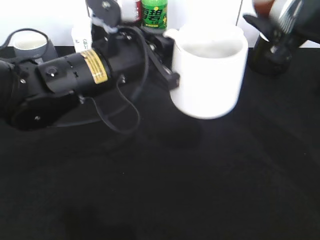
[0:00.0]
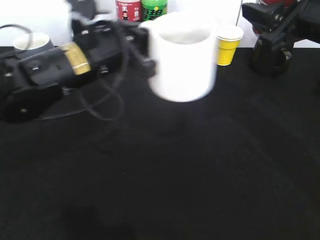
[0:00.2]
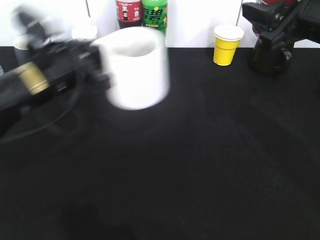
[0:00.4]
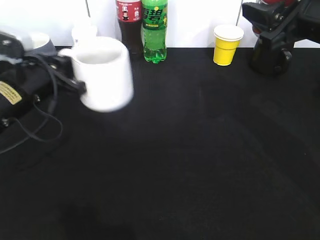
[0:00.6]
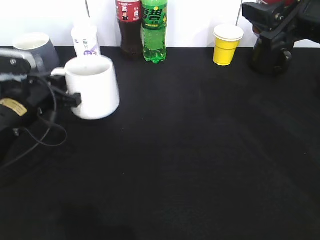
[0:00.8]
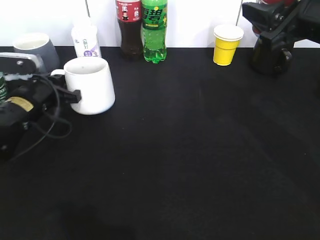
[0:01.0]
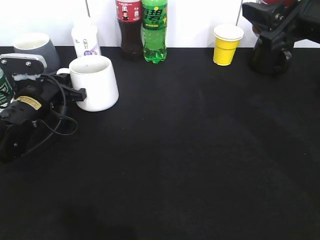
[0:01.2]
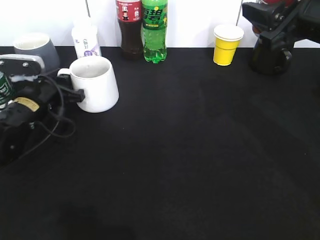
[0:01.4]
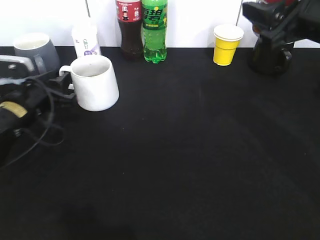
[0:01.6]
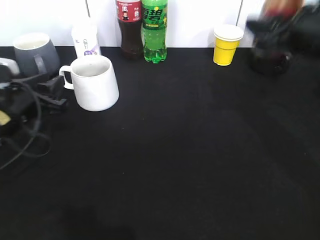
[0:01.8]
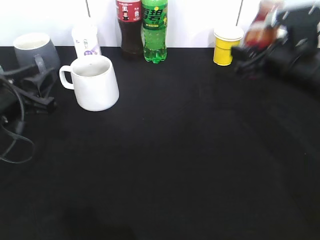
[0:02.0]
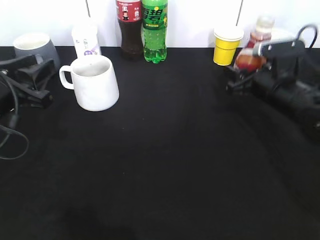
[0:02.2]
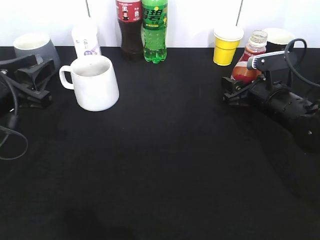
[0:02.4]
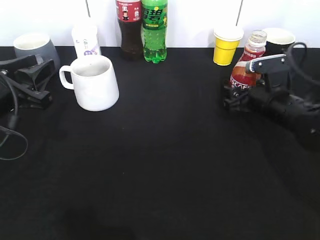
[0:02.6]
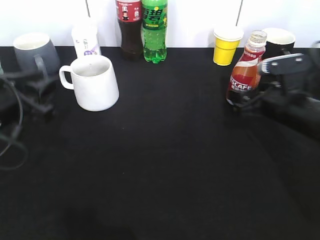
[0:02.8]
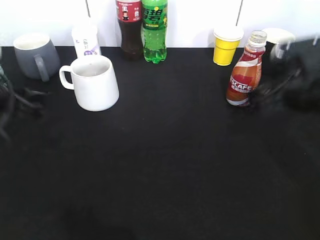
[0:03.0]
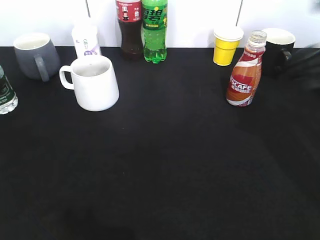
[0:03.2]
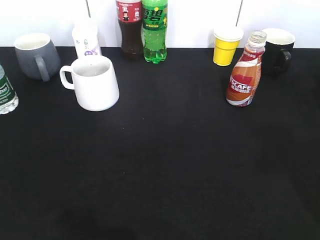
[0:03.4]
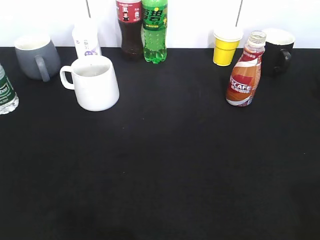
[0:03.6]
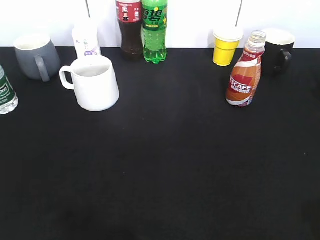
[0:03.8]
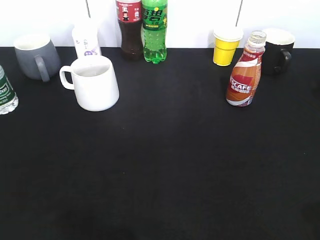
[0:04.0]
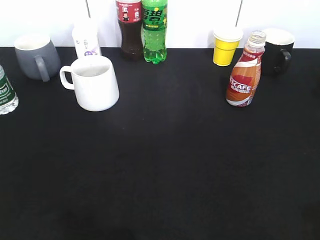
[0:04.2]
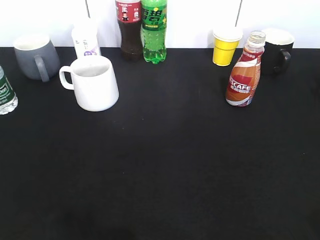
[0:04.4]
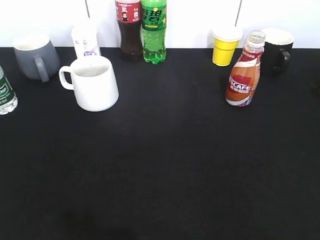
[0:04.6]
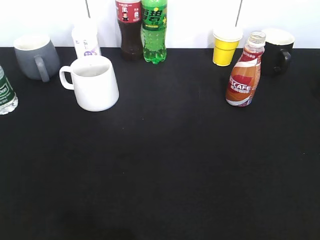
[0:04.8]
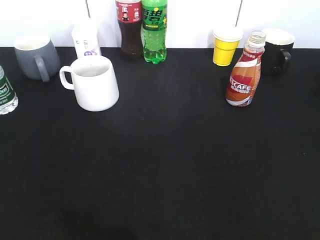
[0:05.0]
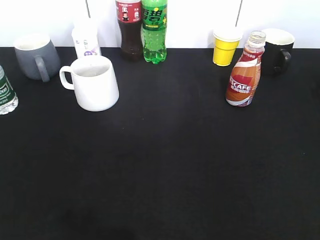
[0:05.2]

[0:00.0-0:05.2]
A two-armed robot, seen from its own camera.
Step, 0:00.2 to 0:01.6: Place the white cup on the table with left gripper.
Step, 0:02.0 to 0:02.8: Place the coffee bottle on the table with right gripper.
0:00.0 to 0:01.8: The left gripper travels to the left and downward by about 20 cm, and opens its fingers.
0:01.8 to 0:03.4: The left gripper shifts about 25 cm upward and backward, while the right gripper travels backward and upward by roughly 20 cm, and opens up.
0:03.4 to 0:05.2: The left gripper moves backward and downward, roughly 10 cm, while the right gripper heads backward, covering approximately 15 cm.

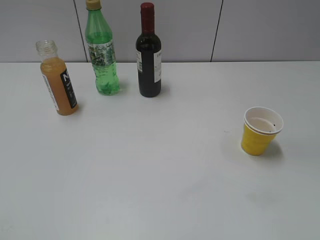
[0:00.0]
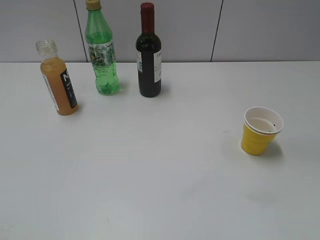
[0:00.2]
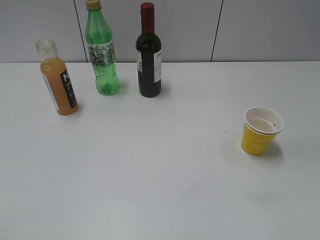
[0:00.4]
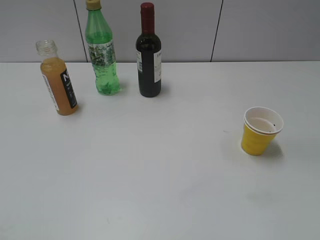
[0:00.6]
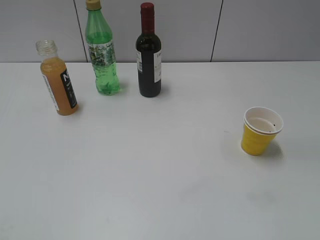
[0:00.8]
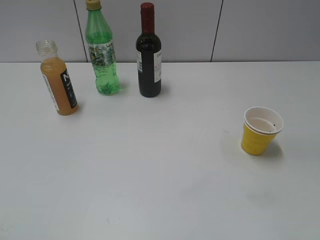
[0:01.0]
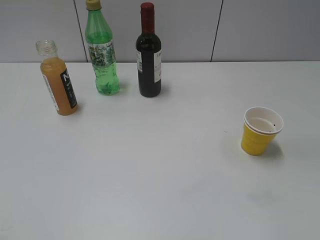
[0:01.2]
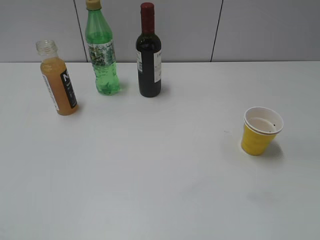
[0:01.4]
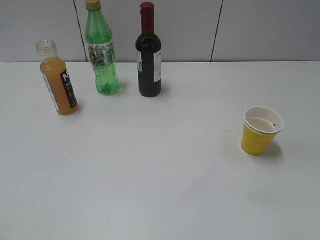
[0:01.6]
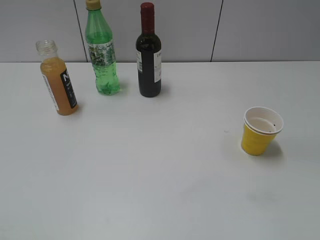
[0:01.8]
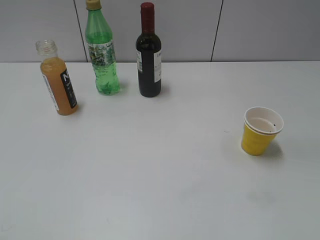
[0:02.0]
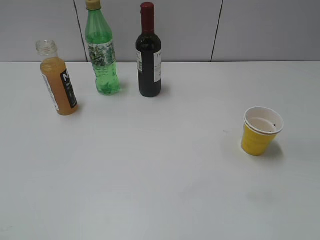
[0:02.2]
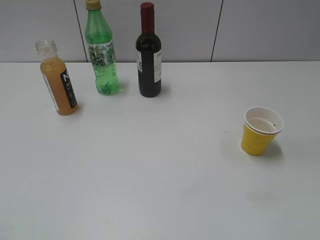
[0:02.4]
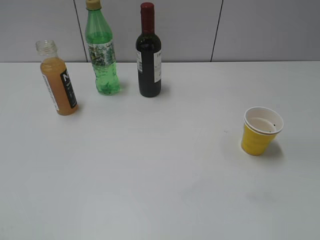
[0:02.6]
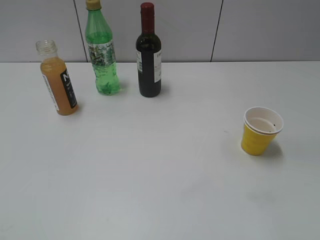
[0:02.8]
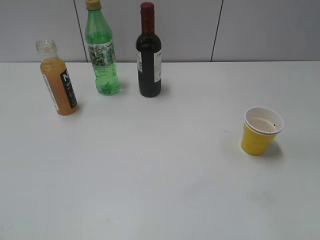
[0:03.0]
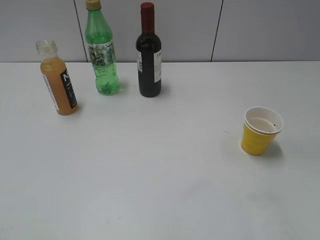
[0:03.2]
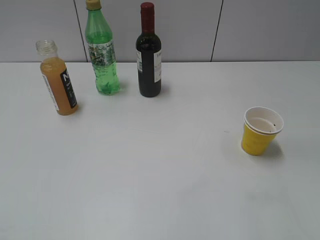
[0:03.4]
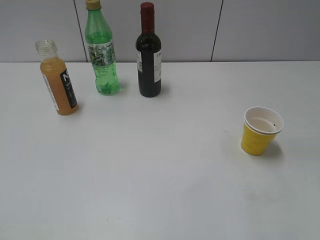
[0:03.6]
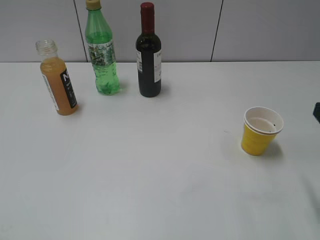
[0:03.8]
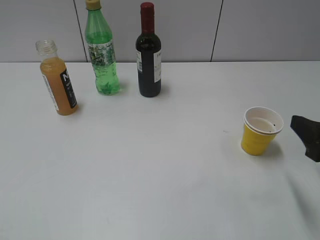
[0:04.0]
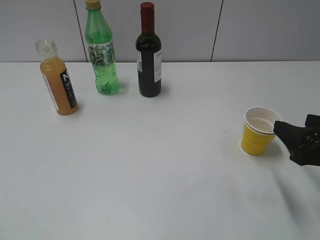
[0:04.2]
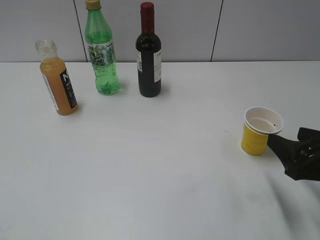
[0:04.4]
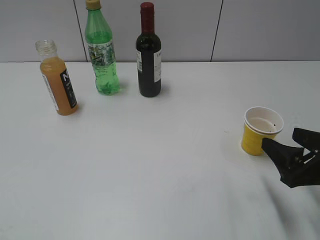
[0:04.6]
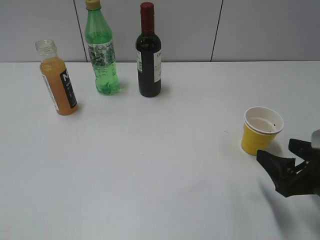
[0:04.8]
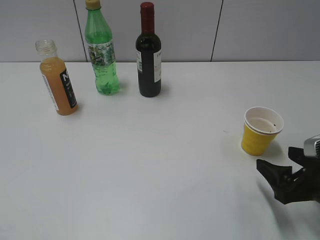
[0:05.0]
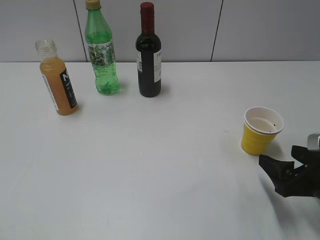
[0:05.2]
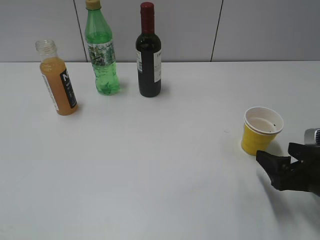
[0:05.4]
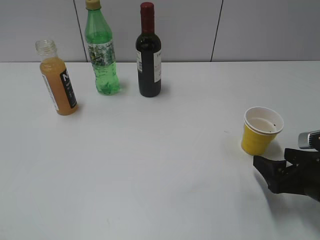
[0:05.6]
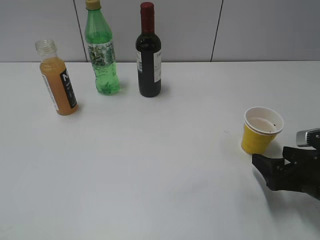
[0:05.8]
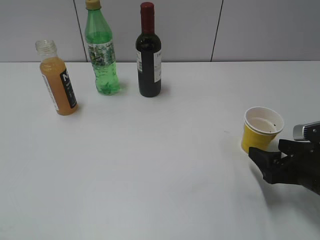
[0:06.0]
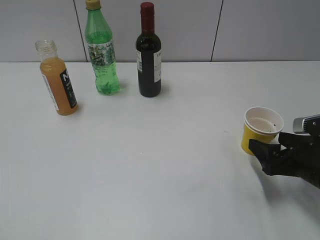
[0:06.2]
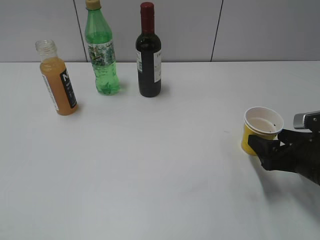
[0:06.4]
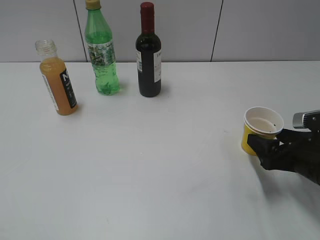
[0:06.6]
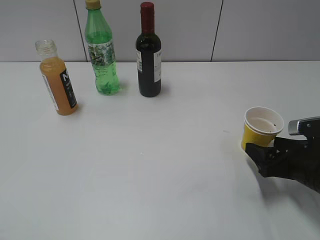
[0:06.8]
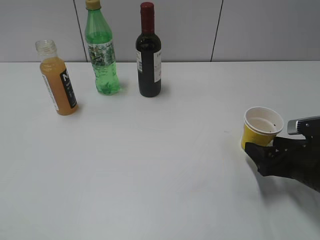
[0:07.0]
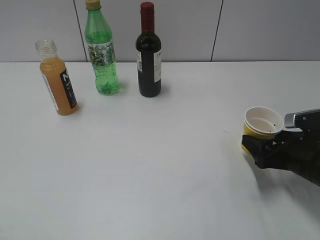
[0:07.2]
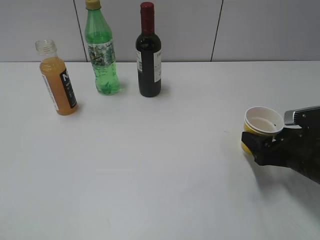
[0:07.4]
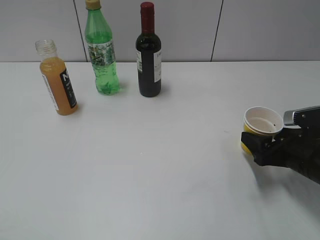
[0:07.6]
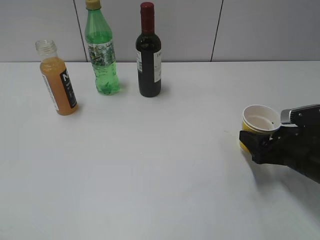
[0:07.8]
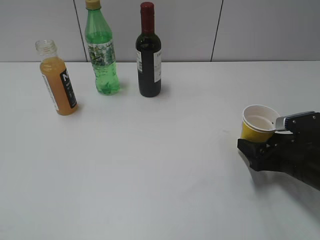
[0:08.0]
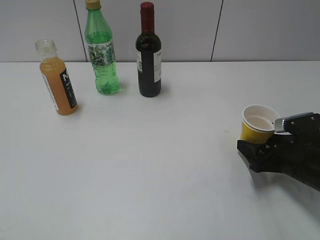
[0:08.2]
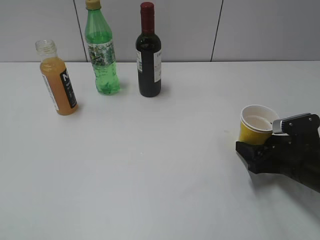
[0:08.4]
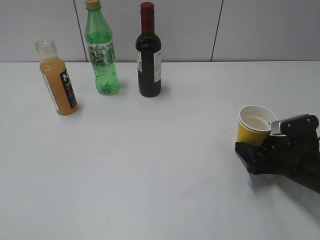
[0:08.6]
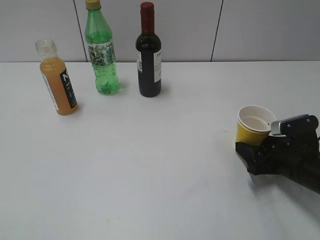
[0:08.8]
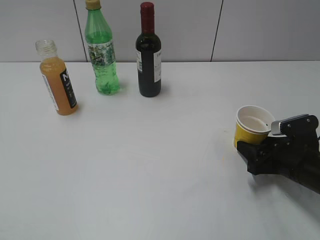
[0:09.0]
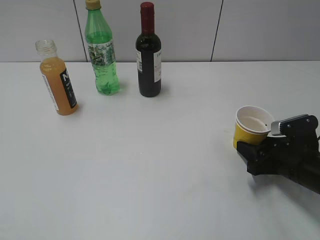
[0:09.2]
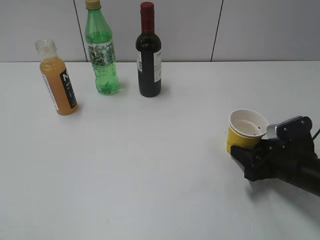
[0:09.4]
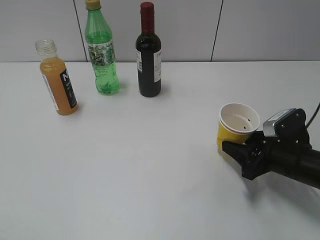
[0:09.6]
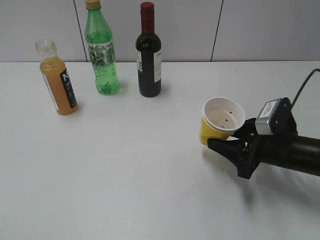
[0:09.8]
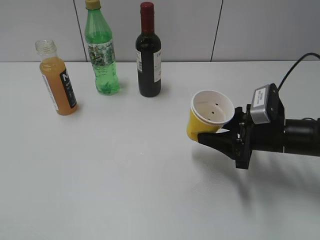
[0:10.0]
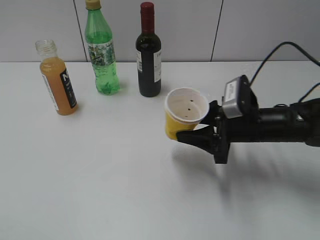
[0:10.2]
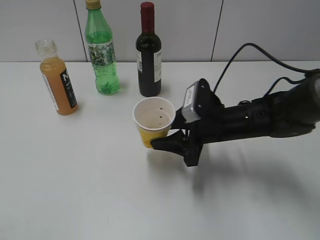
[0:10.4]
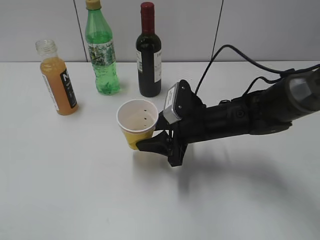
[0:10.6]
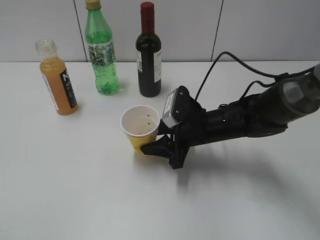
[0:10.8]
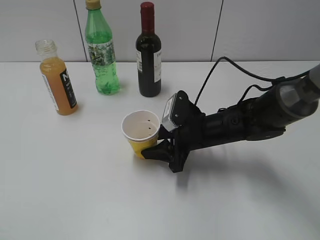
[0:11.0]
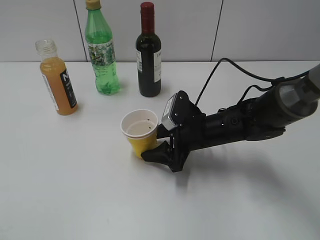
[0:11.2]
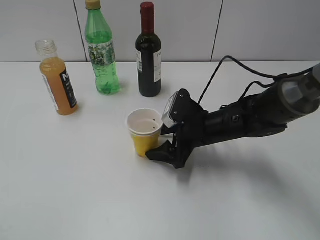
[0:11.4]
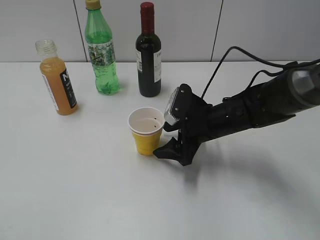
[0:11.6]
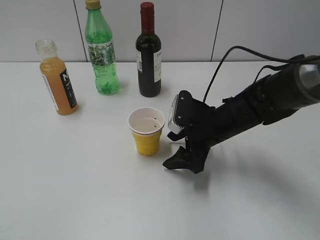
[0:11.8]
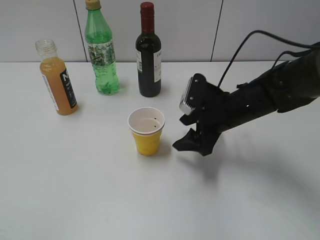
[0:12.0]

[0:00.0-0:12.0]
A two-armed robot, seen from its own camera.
Step, 0:03.8 to 0:09.2: Grasp the yellow paper cup with right gripper.
Step, 0:09.4 to 0:11.8: Place the yellow paper cup on the table with right gripper.
0:03.0 to 0:04.4: The right gripper goes some 20 cm downward and forward.
0:04.4 to 0:06.0: The right gripper moves downward, about 5 cm.
0:06.0 to 0:07.6: There are only small adjustments of the grippers.
0:07.6 to 0:09.0: The right gripper closes its fingers.
0:09.0 to 0:10.4: The right gripper heads to the left, covering approximately 15 cm.
0:10.4 to 0:12.0: The right gripper opens its fingers.

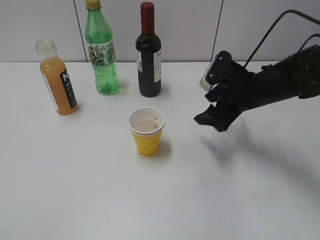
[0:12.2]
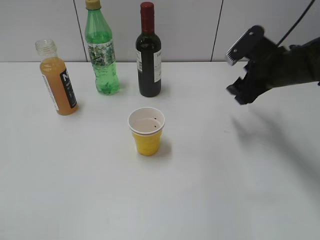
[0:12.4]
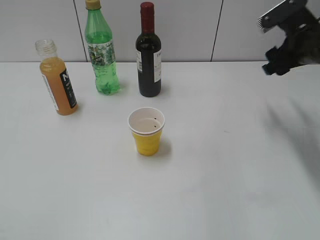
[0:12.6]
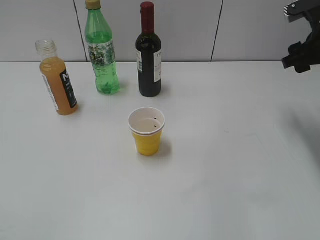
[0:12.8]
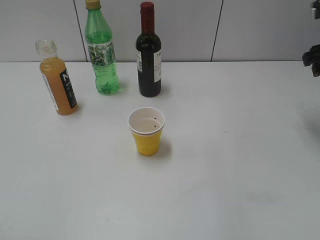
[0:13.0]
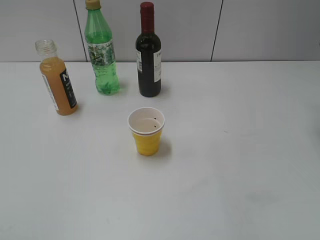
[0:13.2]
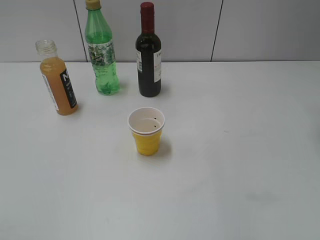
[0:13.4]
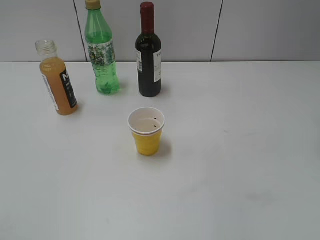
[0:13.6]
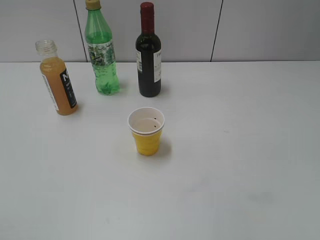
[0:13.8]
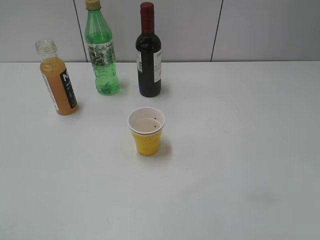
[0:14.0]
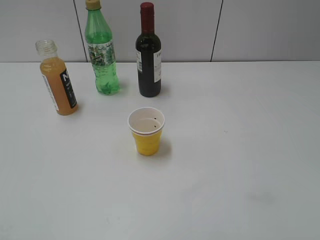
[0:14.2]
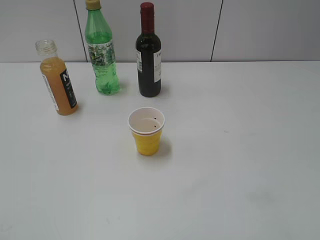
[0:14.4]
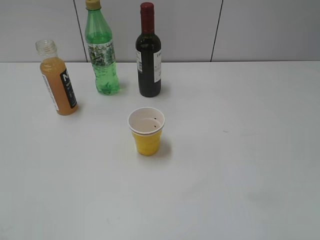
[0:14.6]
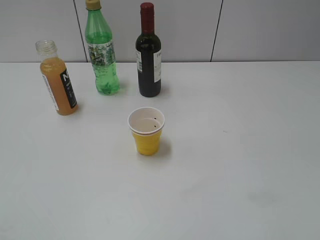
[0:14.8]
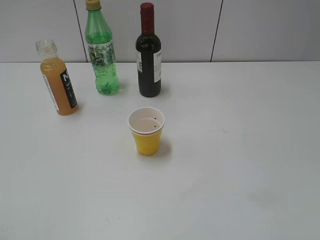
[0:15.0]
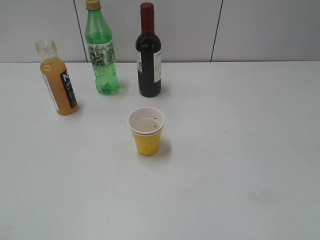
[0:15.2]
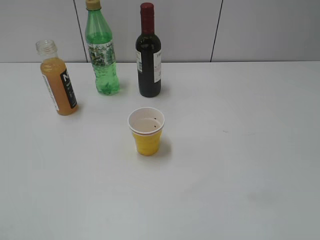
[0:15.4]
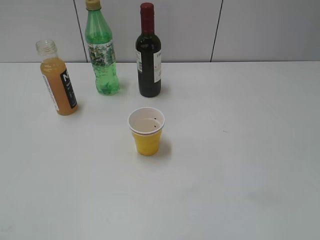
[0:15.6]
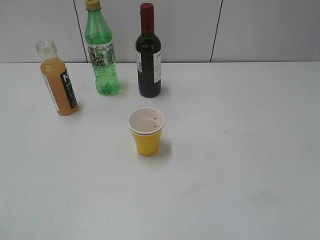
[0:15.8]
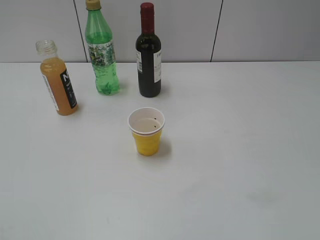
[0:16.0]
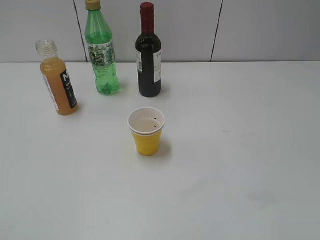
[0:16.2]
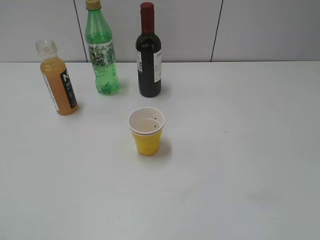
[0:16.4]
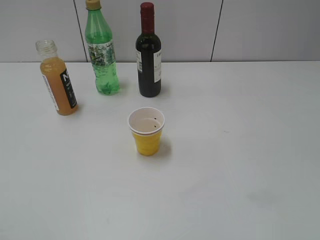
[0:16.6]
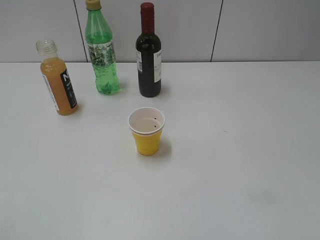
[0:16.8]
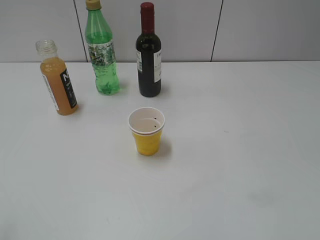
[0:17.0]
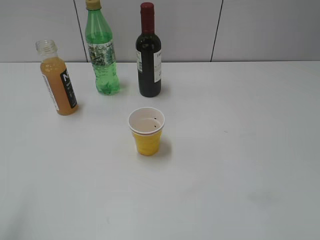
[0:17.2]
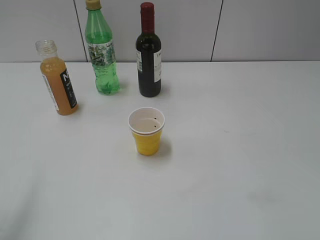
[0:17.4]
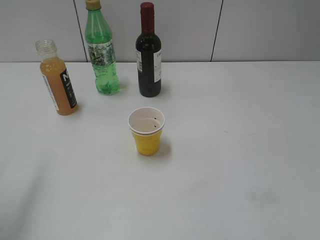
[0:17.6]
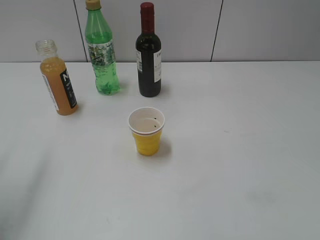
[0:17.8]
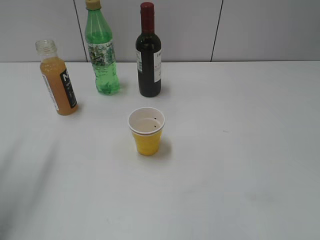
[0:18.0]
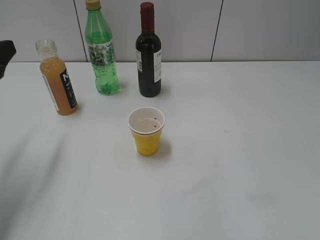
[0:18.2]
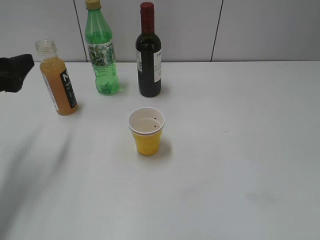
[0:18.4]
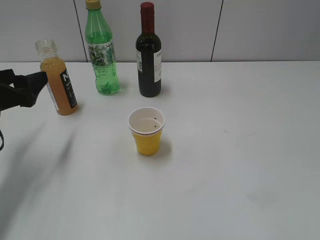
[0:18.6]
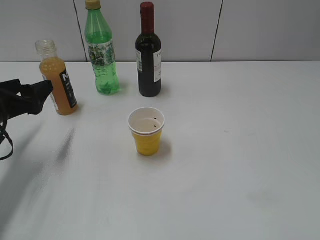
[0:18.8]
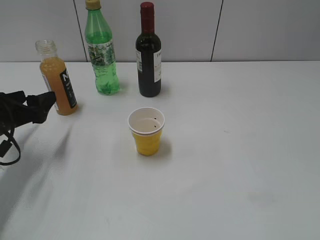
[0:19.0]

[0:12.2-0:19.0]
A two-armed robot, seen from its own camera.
0:12.2 to 0:13.6: The right gripper goes some 25 cm upward and to the right.
0:16.2 to 0:17.6: The left gripper moves forward, approximately 15 cm.
0:17.6 to 0:19.0: The left gripper travels downward and forward by approximately 25 cm.
